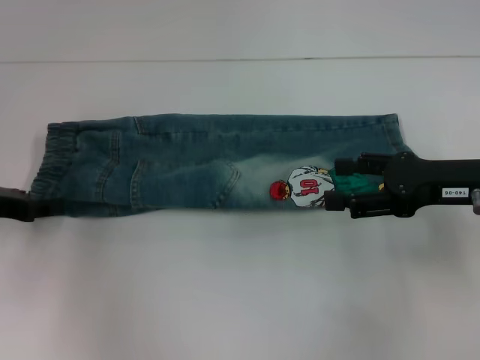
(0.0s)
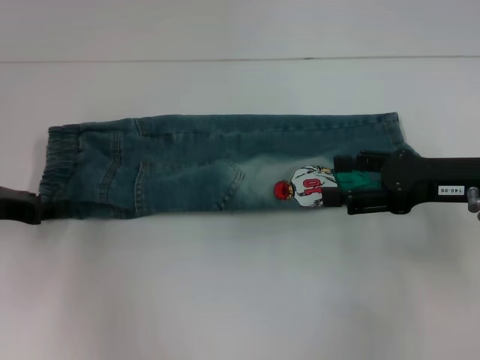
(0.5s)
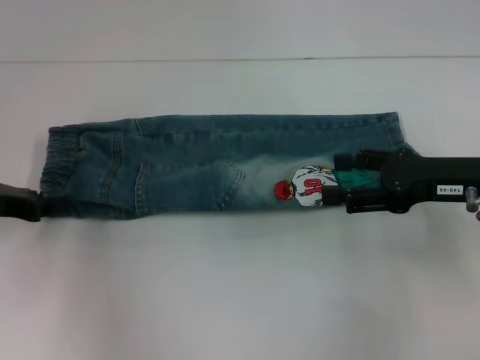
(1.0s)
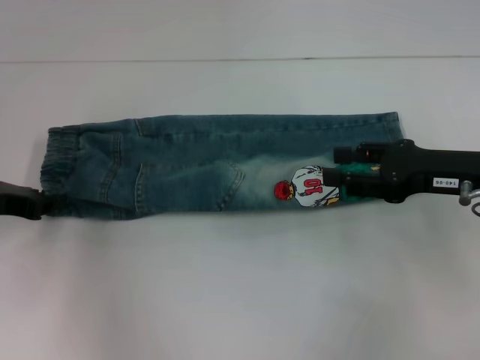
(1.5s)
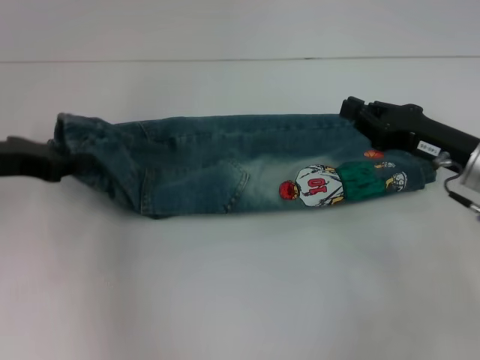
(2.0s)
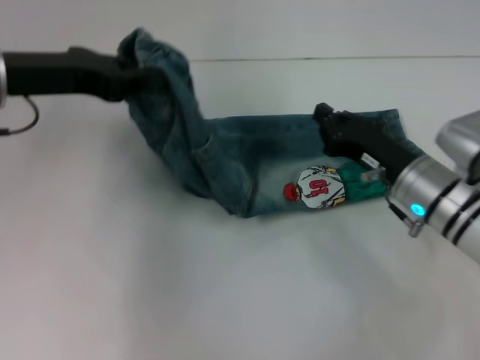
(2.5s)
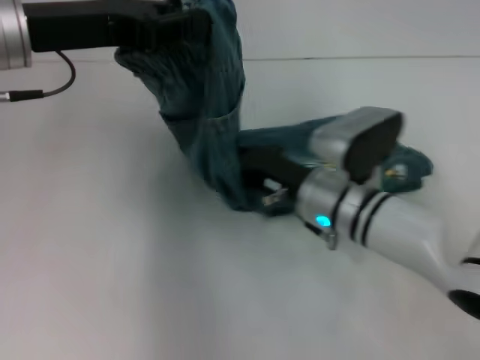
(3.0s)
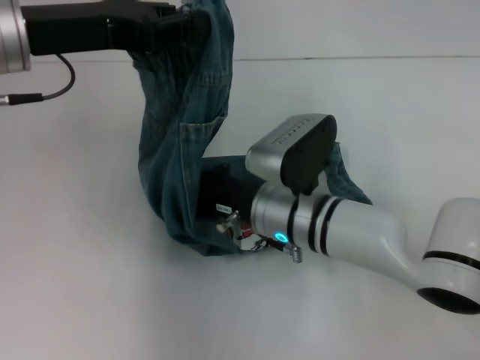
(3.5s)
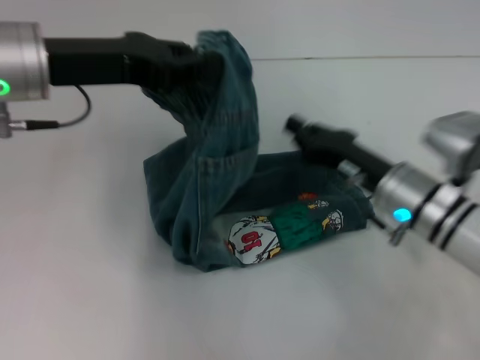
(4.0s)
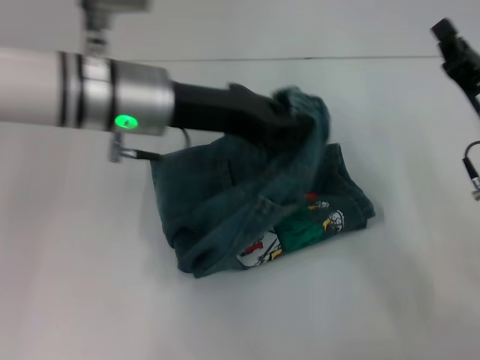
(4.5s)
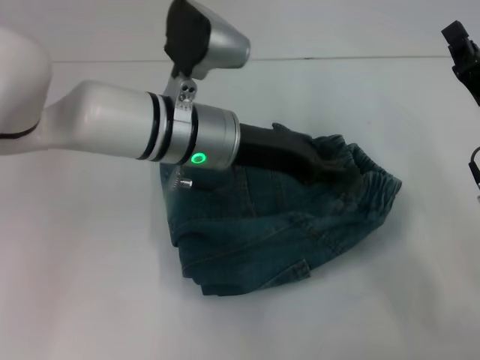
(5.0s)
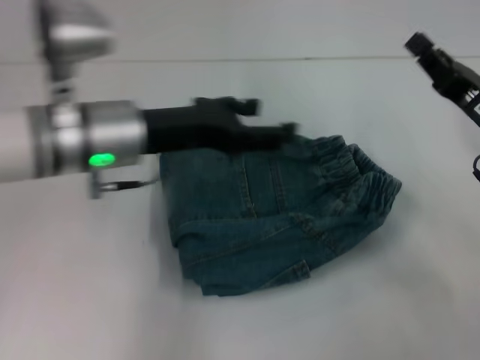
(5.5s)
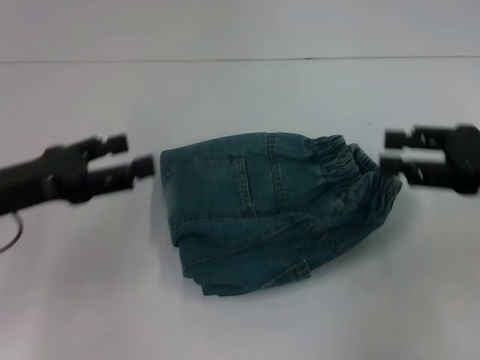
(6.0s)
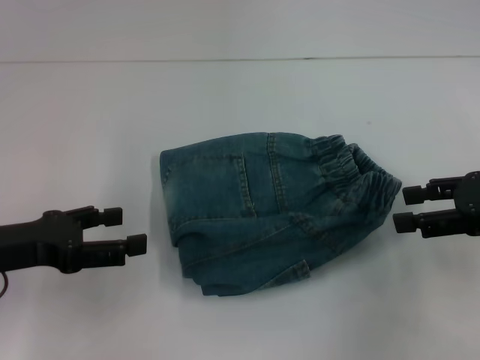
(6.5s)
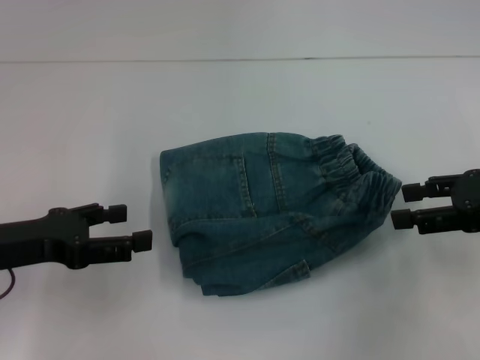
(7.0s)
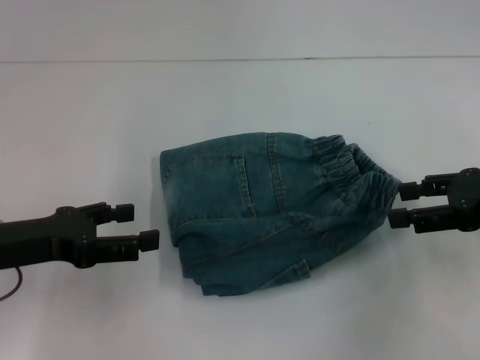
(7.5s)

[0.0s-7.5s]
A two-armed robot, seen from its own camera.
Step, 0.5s to 3.5s: Press the middle of the pants with your right hand.
Step, 4.0s to 5.5s: Fold to the right with your left hand.
0.0s to 2.0s: The left gripper travels upward by some 5 cm, and closes, while the right gripper closes.
2.0s to 4.0s: The left gripper goes about 10 cm to the right and upward. Meanwhile the right gripper heads to the left, covering roughly 10 cm.
4.0s to 5.5s: The right gripper goes approximately 10 cm to the right; the left gripper goes some 10 cm downward and to the right, and opens.
5.5s to 7.5s: The right gripper travels upward by some 5 cm, and opens up, while the left gripper shifts approximately 15 cm to the left and backward.

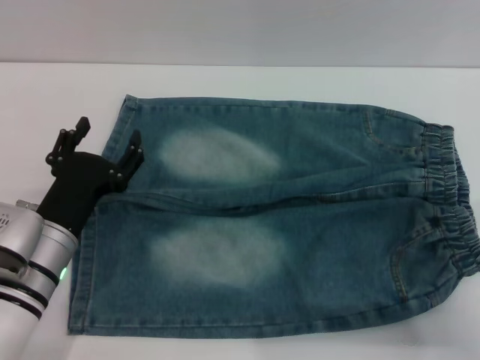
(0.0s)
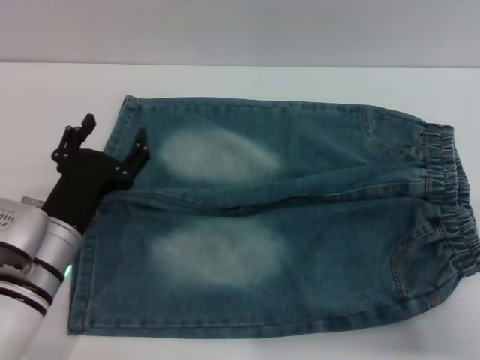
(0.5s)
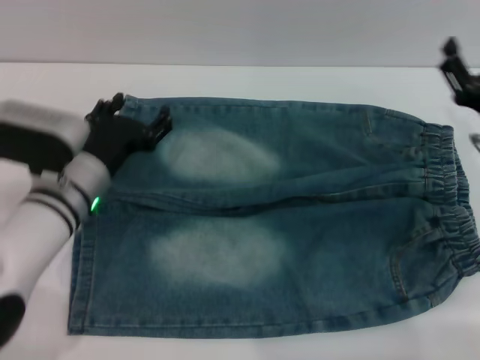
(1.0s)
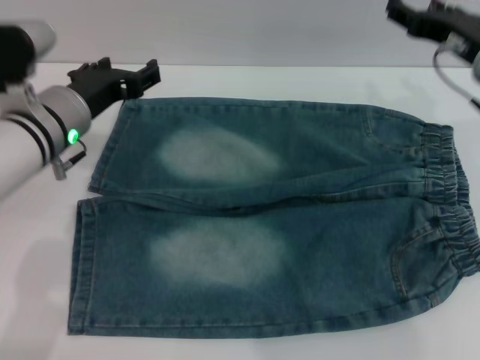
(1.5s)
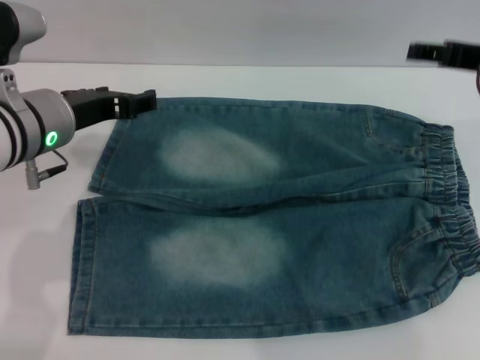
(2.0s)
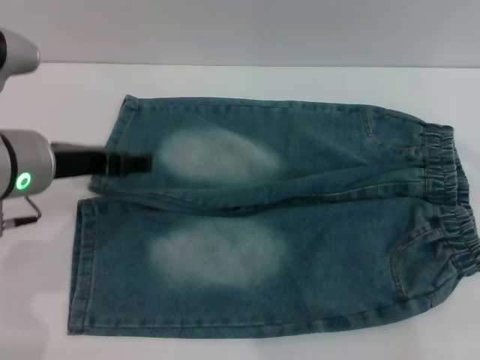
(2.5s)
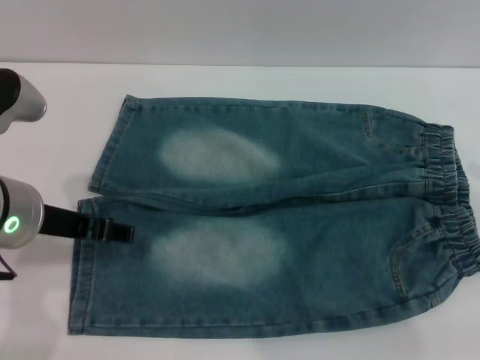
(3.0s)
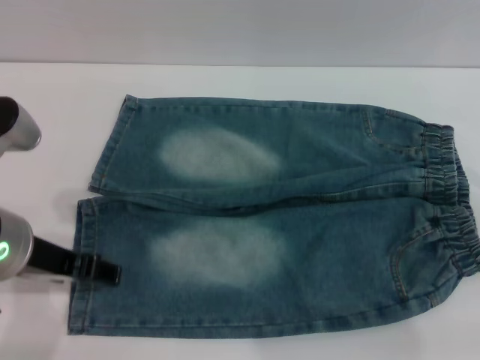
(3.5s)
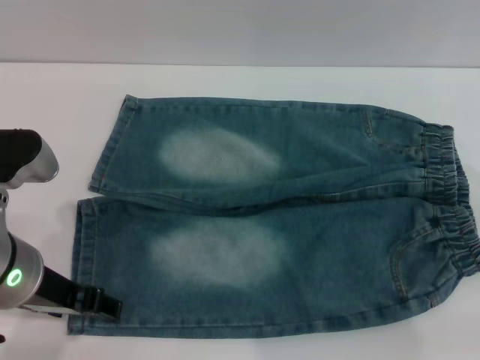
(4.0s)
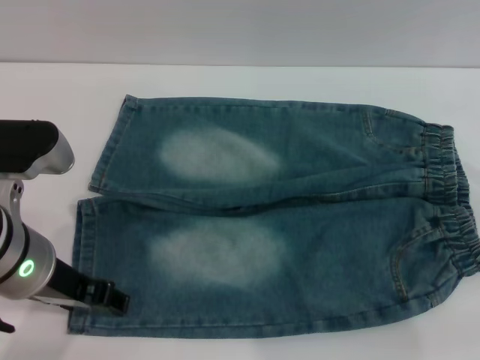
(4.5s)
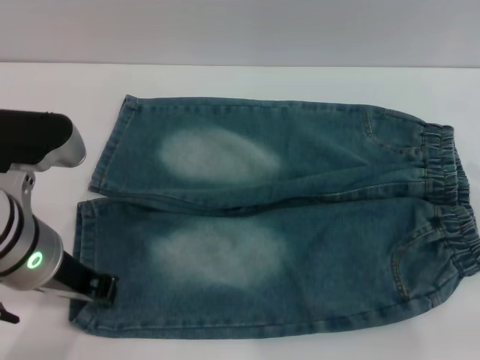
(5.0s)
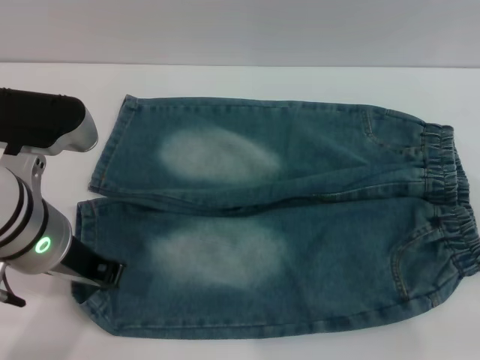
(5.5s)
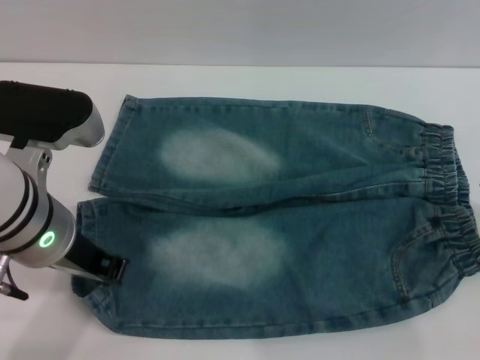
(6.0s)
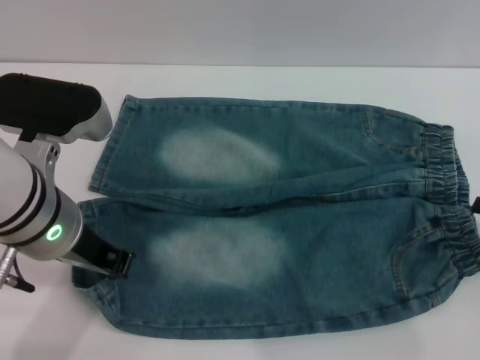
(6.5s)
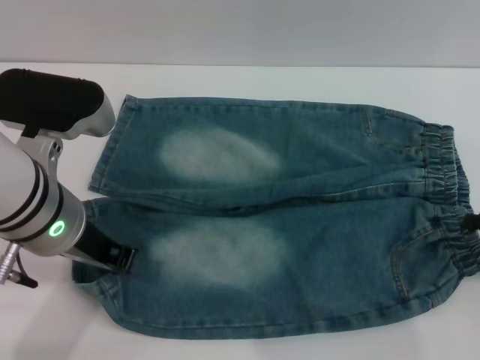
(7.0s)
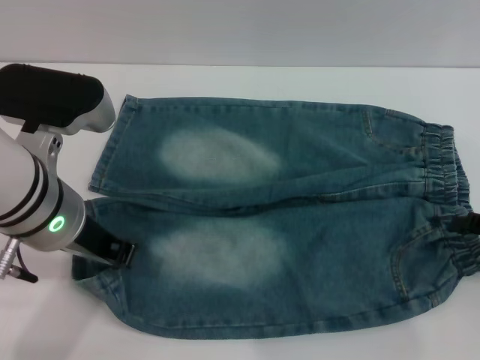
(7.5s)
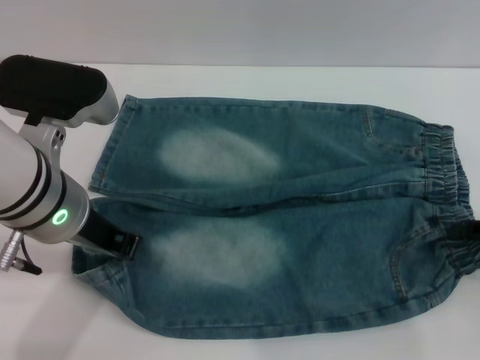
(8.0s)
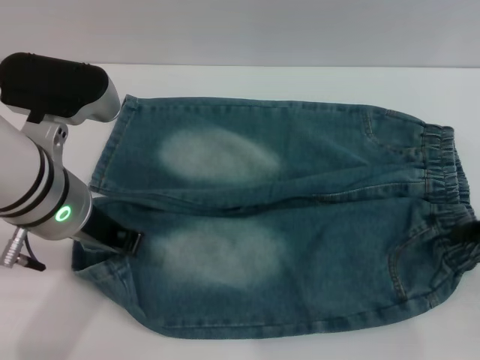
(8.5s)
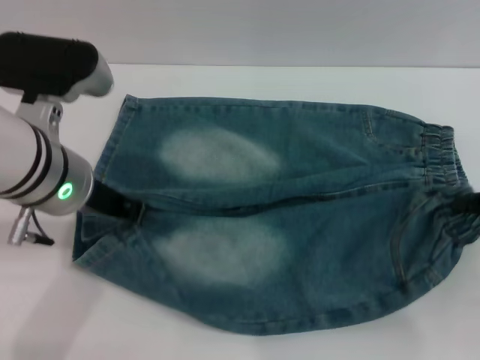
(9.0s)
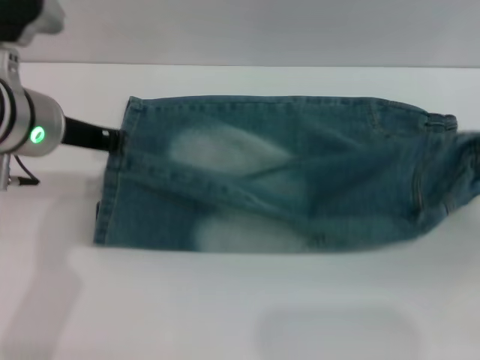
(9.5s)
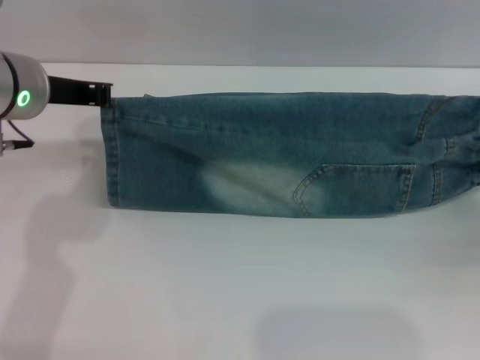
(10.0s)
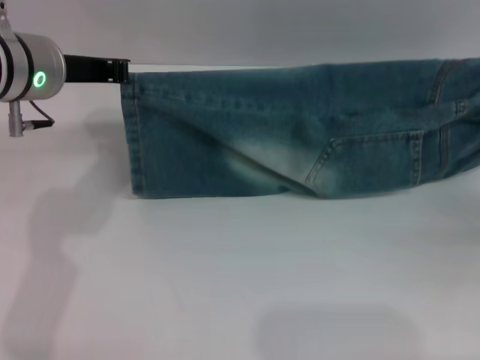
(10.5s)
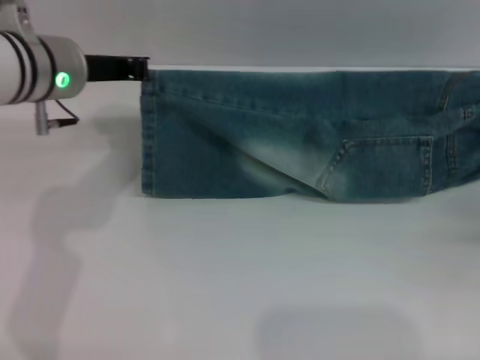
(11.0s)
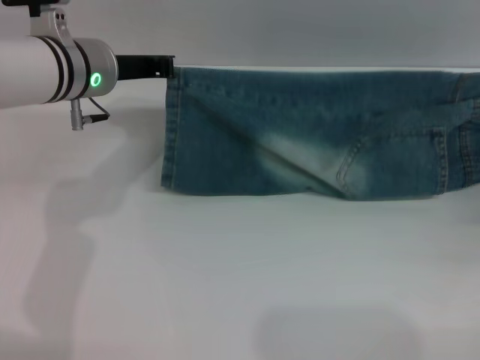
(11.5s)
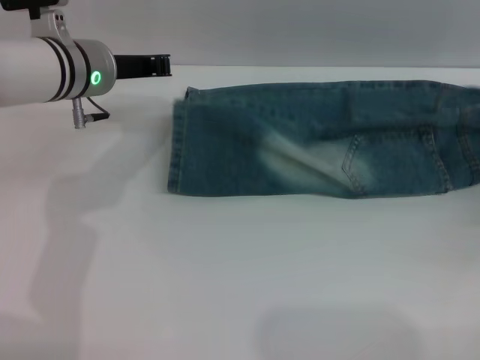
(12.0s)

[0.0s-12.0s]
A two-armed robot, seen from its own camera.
0.0s to 2.0s: Both grippers travel together upward and forward, about 20 cm.
2.0s to 4.0s: The left gripper is displaced backward by approximately 10 cm; the right gripper moves to the right and backward, approximately 15 cm.
4.0s to 6.0s: The left gripper closes its fingers.
6.0s to 8.0s: There are only small adjustments of the grippers.
8.0s to 10.0s: The right gripper closes up. Meanwhile the left gripper heads forward, covering some 5 cm.
10.0s to 12.0s: The left gripper shifts approximately 5 cm forward. The right gripper changes place by some 5 cm.

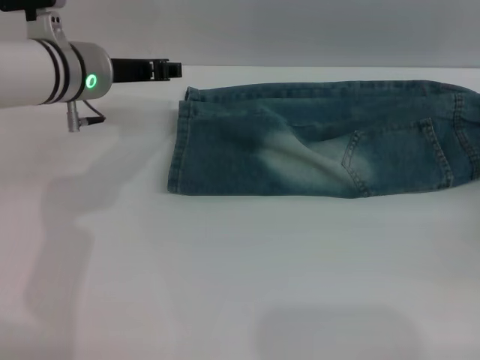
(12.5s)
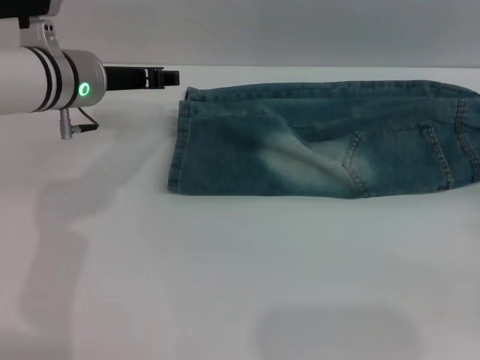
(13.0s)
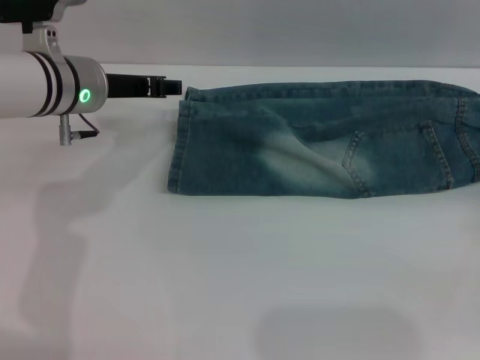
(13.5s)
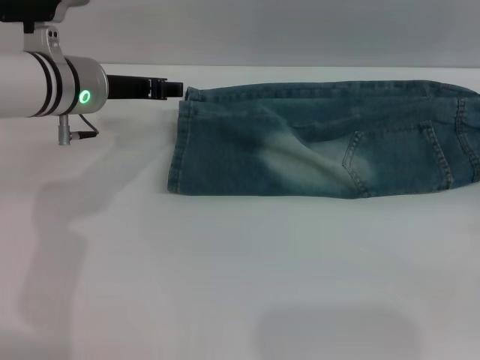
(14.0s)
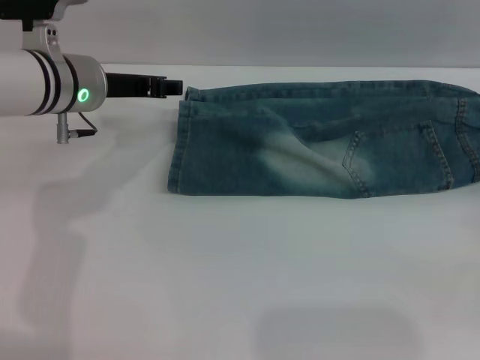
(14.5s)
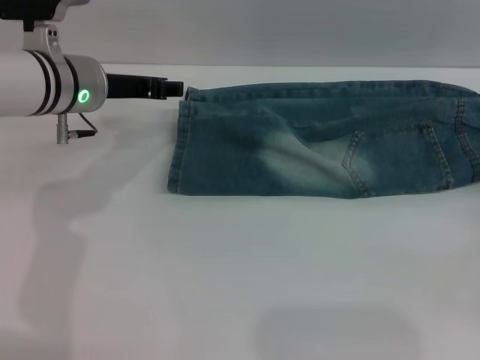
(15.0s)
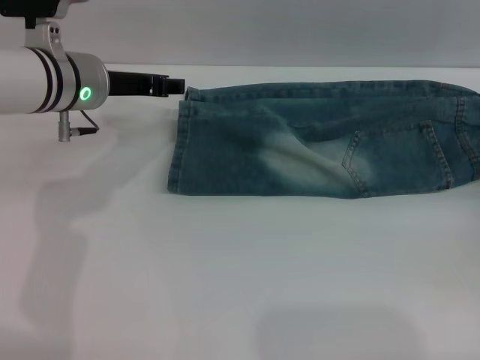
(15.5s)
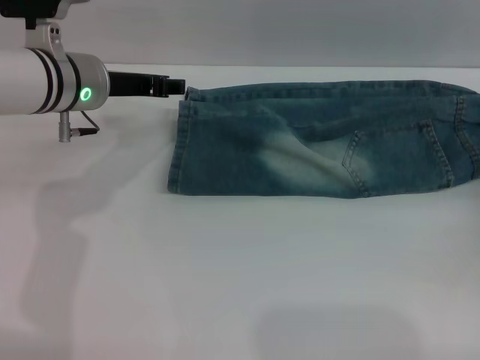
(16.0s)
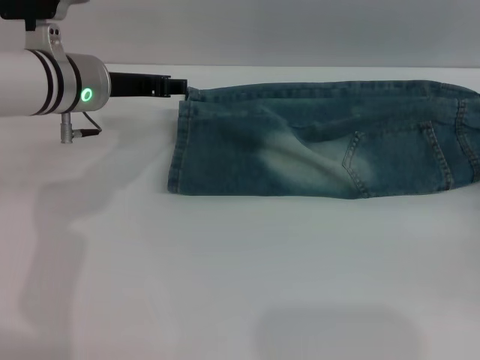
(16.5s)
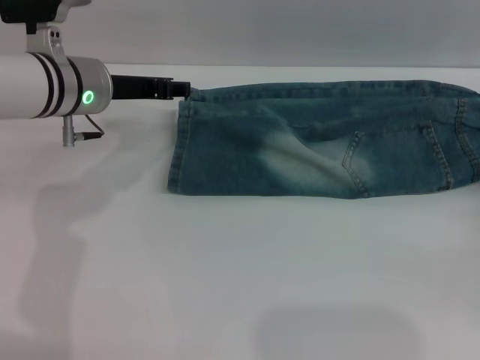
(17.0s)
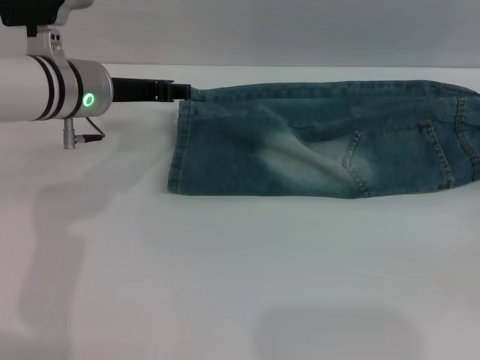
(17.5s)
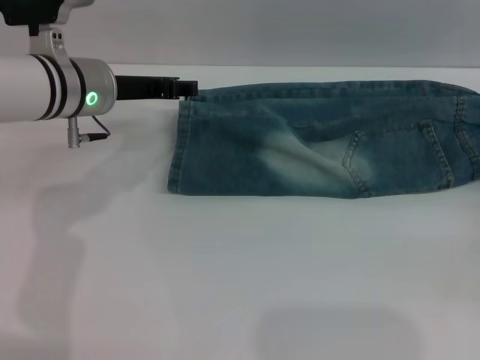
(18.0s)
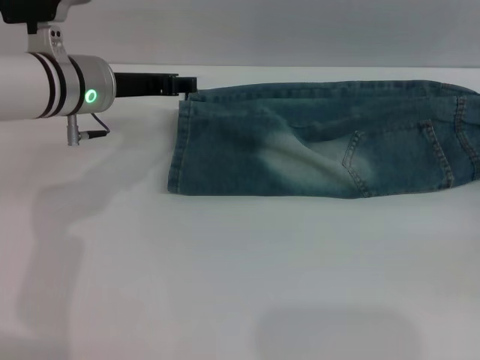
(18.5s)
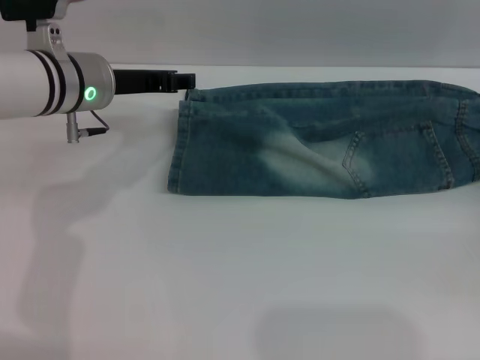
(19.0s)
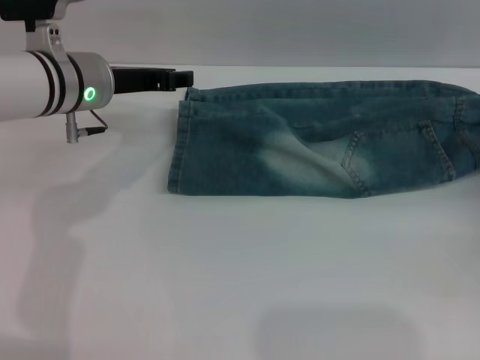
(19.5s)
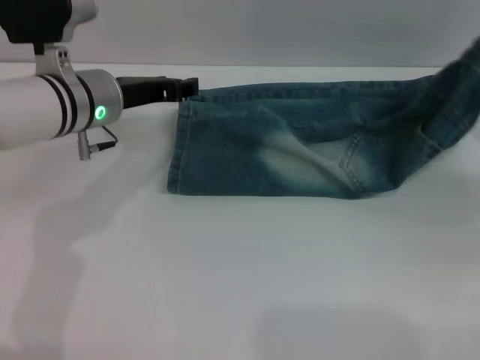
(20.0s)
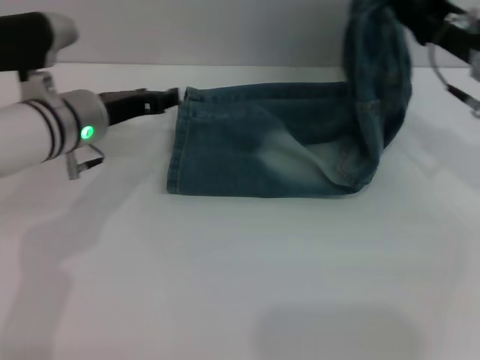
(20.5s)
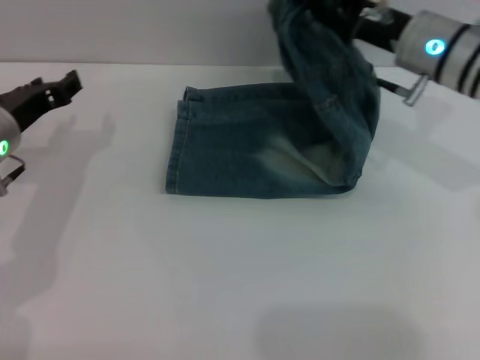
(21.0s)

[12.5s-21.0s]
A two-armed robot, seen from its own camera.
14.5s to 19.0s: There are only small adjustments of the grippers.
19.0s to 21.0s: The left gripper shifts some 10 cm to the left and backward, while the right gripper travels to the left, forward and upward by about 25 cm, and closes.
